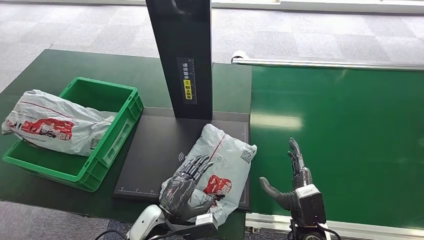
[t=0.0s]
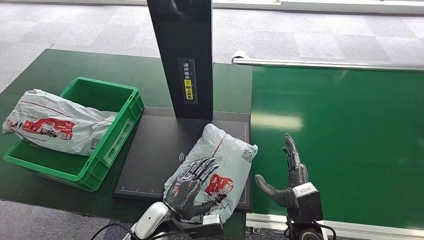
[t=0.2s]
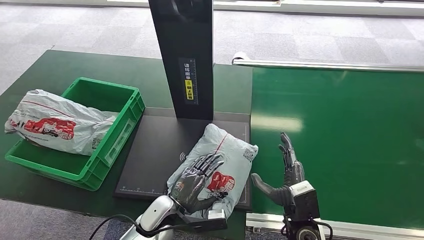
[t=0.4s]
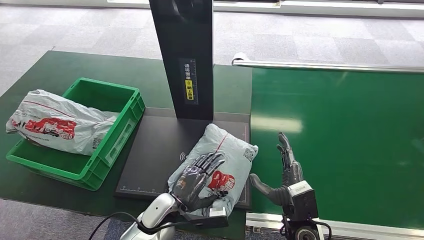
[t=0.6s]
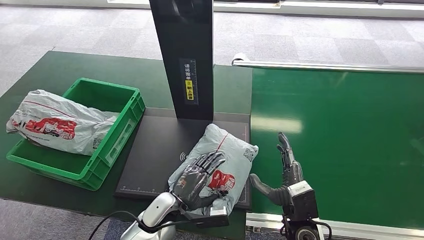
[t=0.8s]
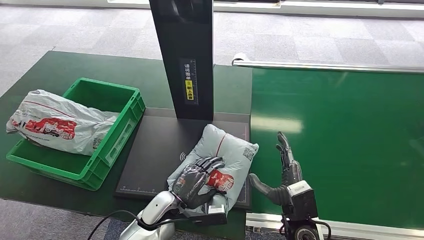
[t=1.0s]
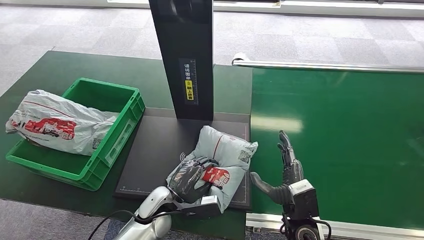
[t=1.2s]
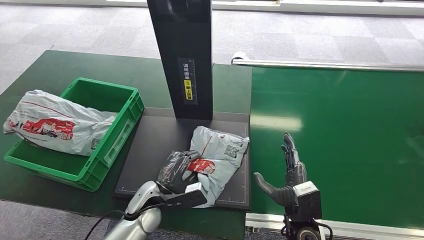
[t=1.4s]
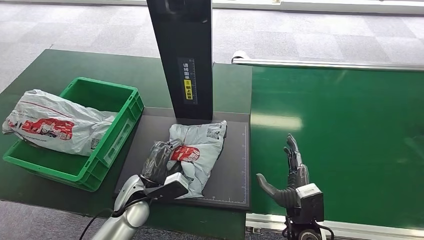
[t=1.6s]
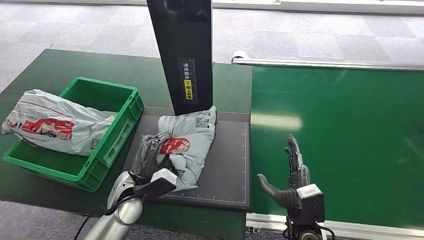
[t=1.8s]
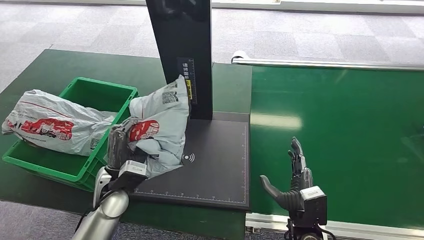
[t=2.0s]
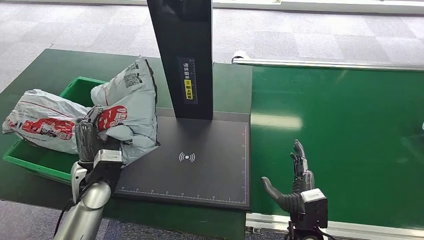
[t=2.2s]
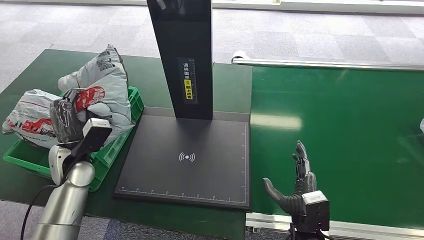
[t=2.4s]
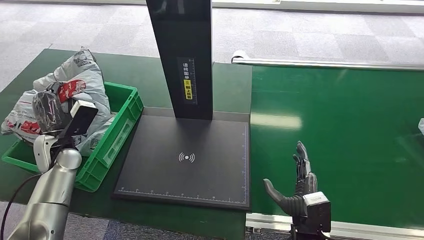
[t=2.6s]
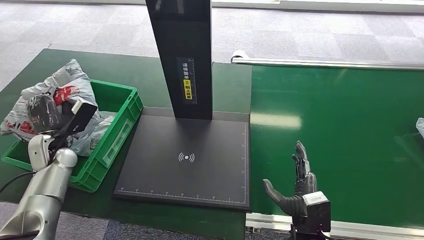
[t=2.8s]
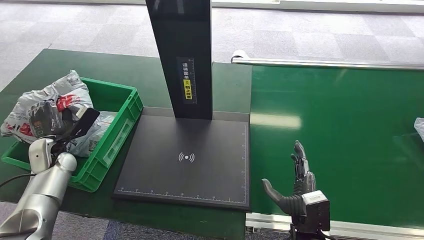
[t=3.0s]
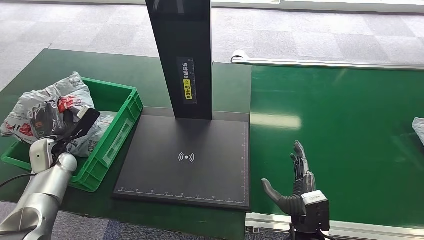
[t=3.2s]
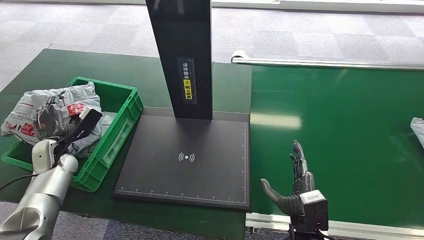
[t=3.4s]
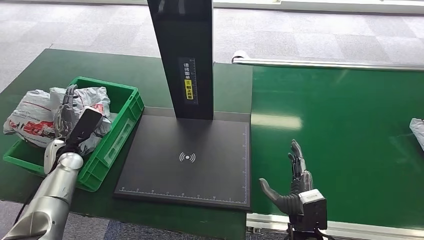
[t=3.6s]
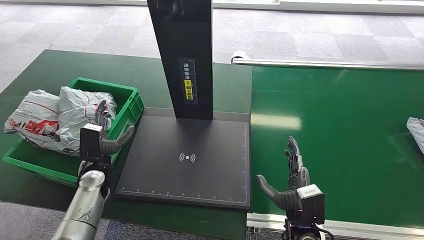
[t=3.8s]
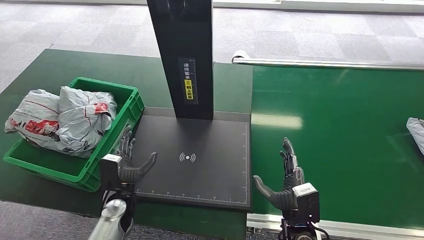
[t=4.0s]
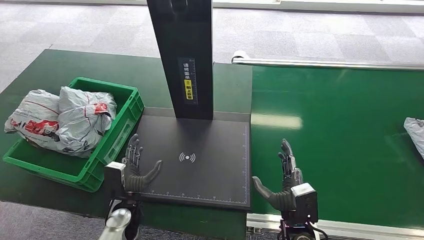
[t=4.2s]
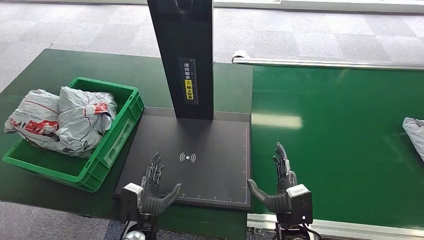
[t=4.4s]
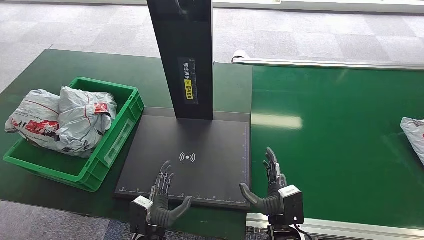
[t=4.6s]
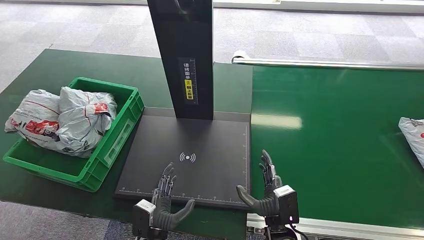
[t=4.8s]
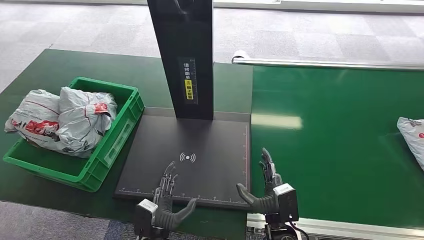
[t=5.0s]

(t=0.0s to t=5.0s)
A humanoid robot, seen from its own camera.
Step, t=0.0s - t=2.4s: Pick up the package from the inbound machine.
Step, t=2.8s - t=4.6s: Place the package into the parcel locker.
t=0.0s - t=1.6s: The left hand moves forward, roughly 5 cm.
t=1.6s - t=3.4s: The left hand goes some 25 cm to the left.
t=3.4s - t=5.0s: The right hand changes place by some 5 cm. Meanwhile the left hand travels to the right, backward and downward by approximately 40 cm.
